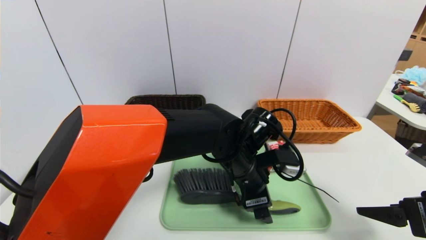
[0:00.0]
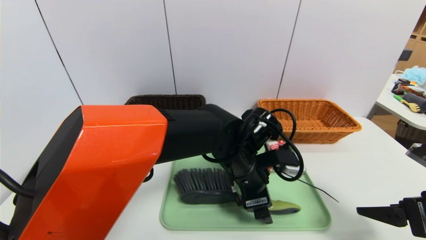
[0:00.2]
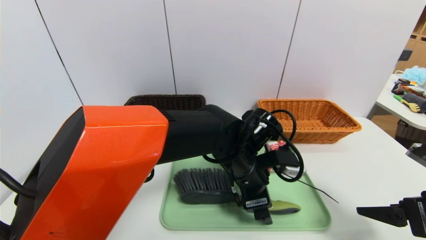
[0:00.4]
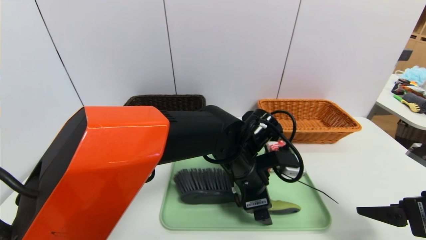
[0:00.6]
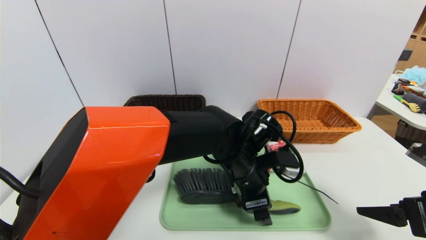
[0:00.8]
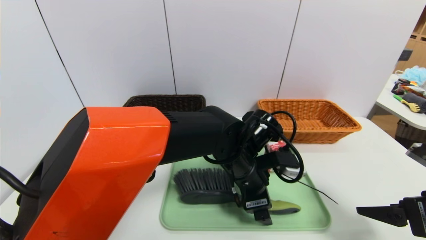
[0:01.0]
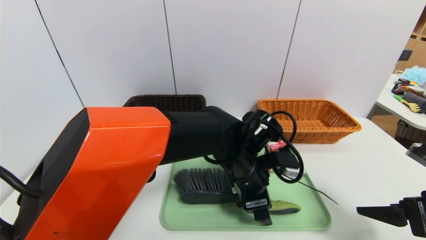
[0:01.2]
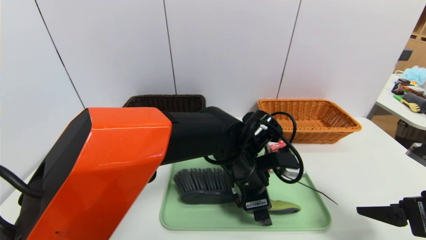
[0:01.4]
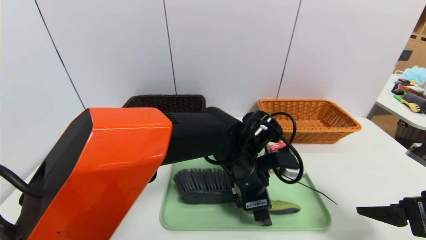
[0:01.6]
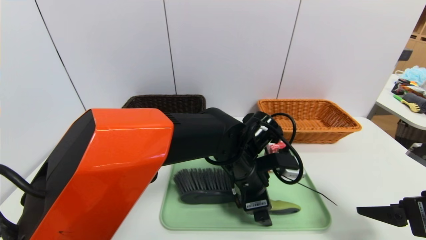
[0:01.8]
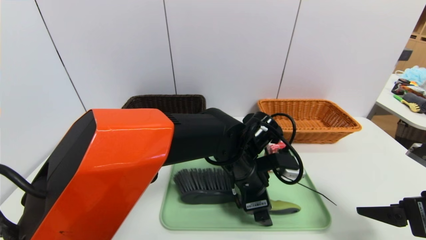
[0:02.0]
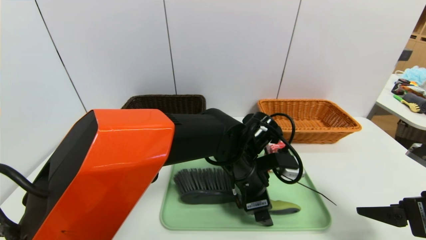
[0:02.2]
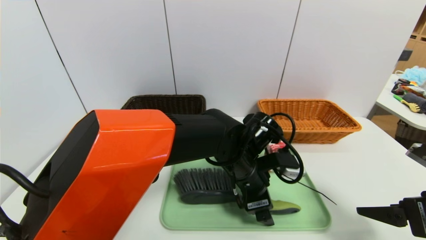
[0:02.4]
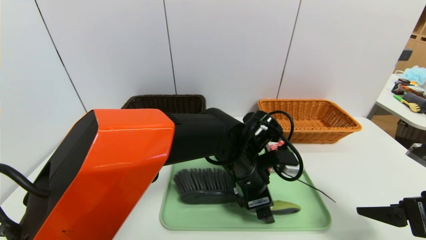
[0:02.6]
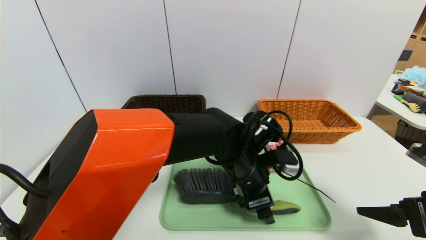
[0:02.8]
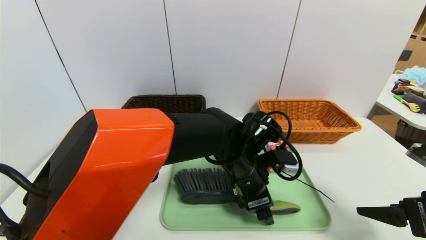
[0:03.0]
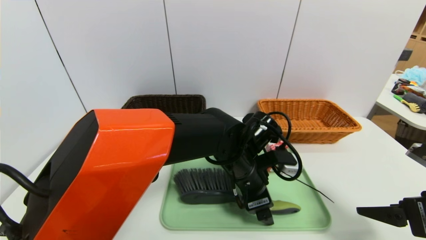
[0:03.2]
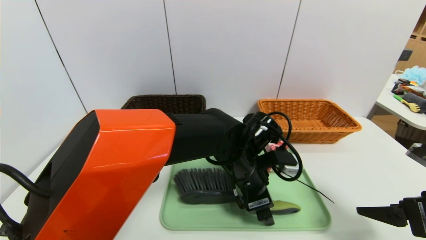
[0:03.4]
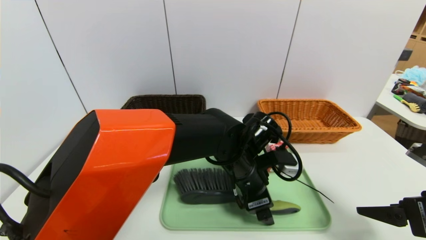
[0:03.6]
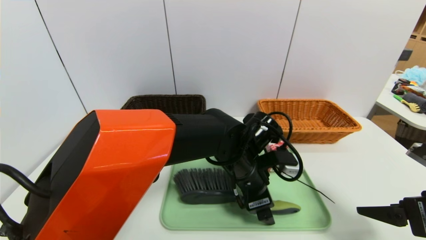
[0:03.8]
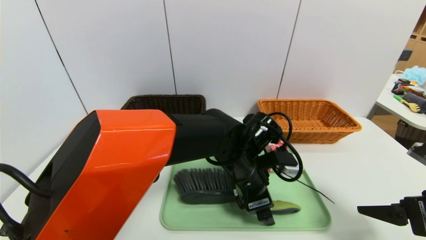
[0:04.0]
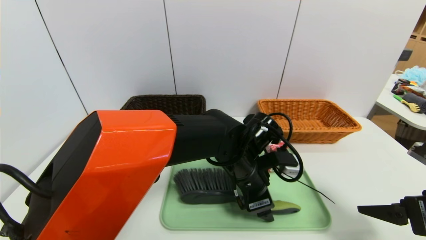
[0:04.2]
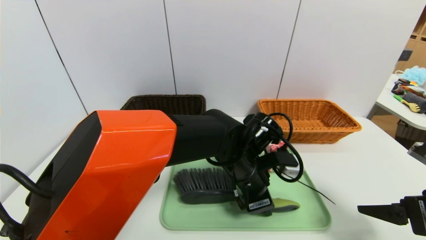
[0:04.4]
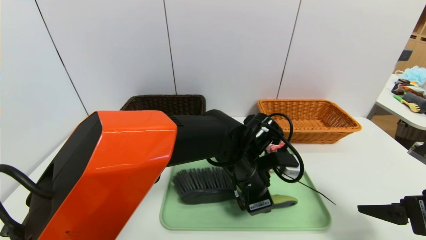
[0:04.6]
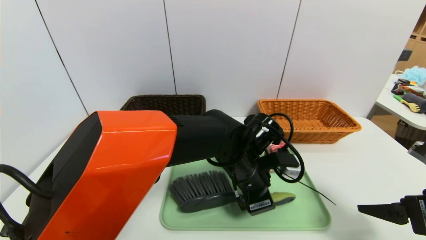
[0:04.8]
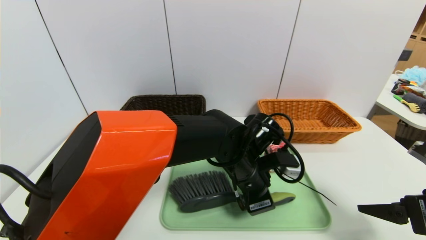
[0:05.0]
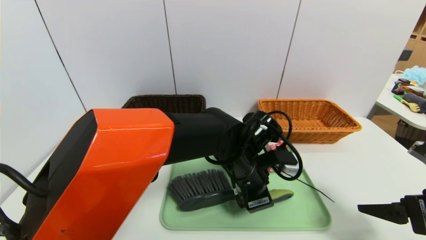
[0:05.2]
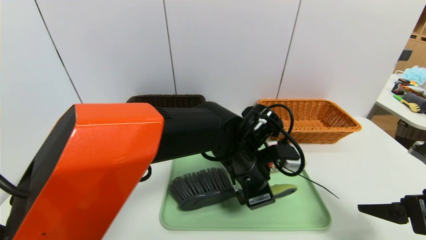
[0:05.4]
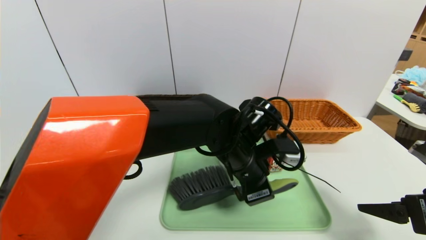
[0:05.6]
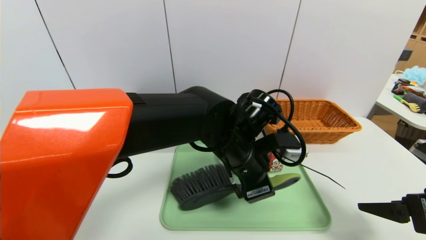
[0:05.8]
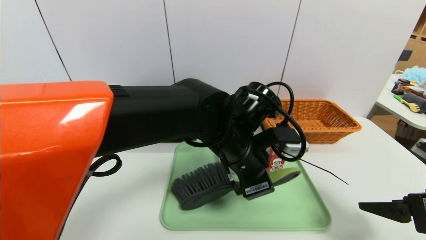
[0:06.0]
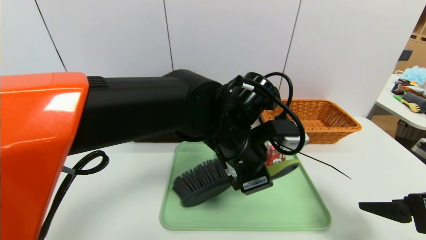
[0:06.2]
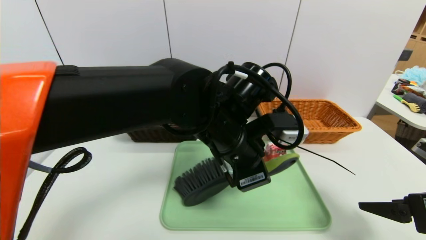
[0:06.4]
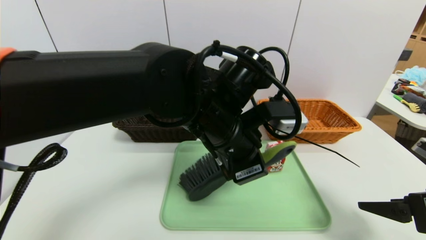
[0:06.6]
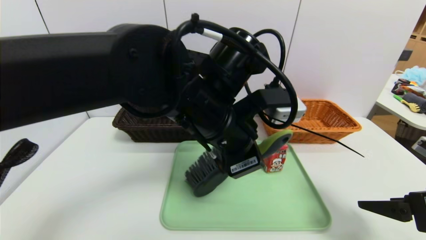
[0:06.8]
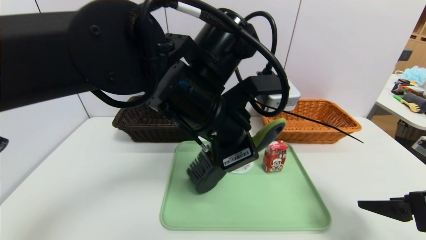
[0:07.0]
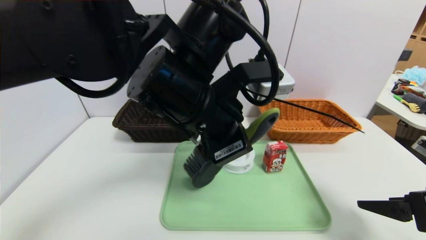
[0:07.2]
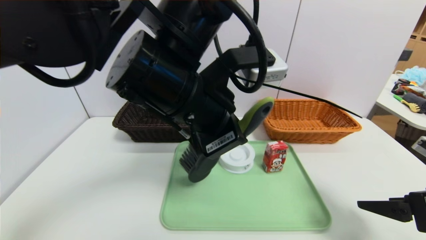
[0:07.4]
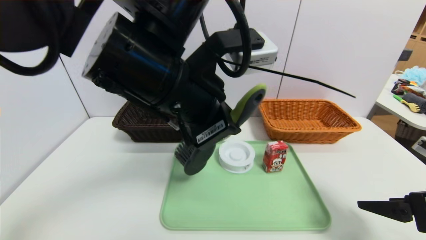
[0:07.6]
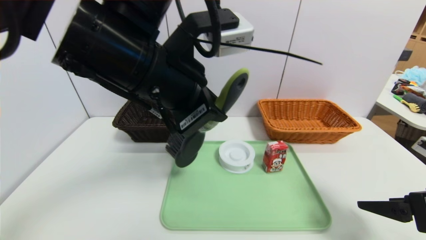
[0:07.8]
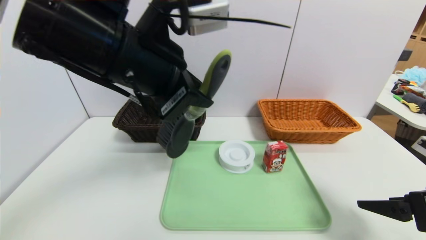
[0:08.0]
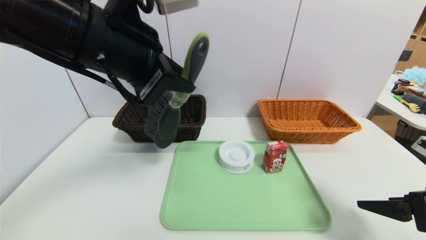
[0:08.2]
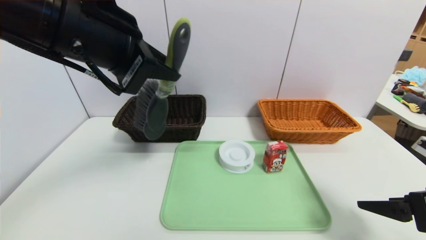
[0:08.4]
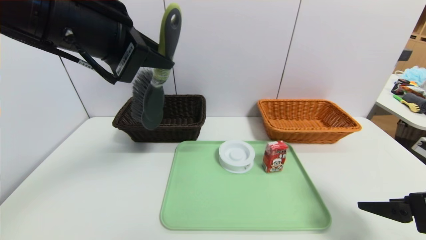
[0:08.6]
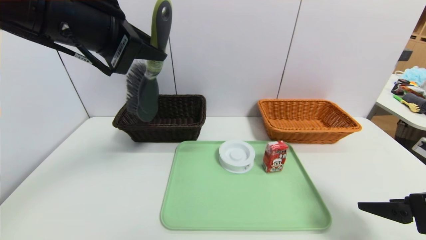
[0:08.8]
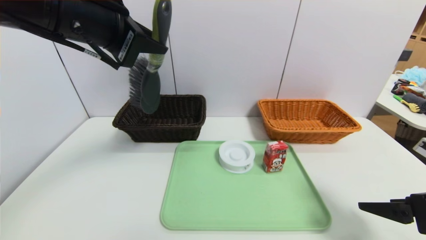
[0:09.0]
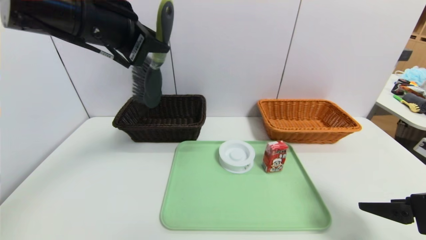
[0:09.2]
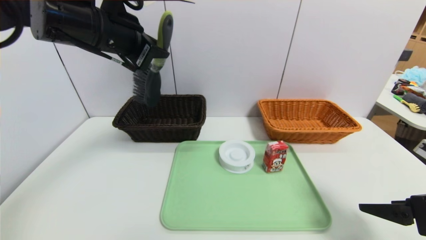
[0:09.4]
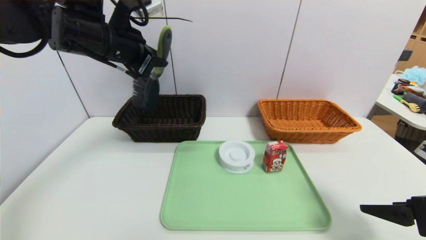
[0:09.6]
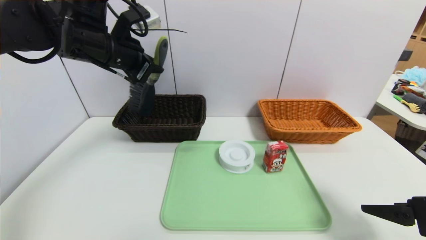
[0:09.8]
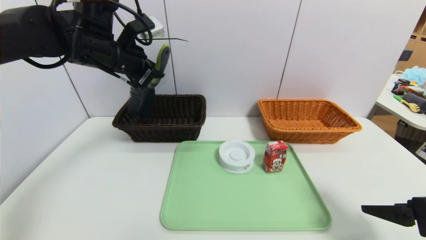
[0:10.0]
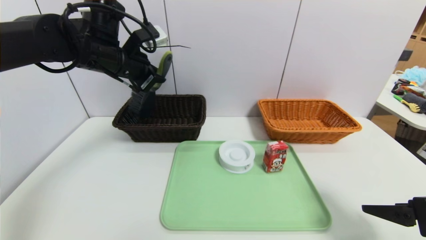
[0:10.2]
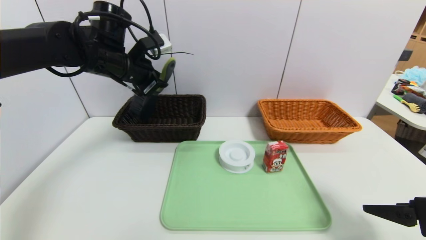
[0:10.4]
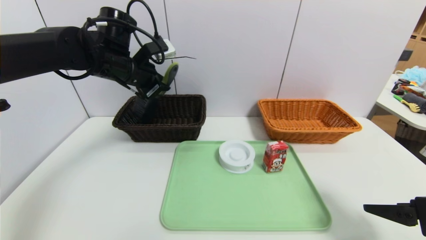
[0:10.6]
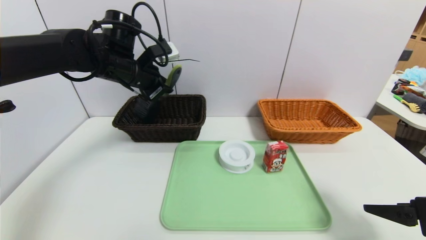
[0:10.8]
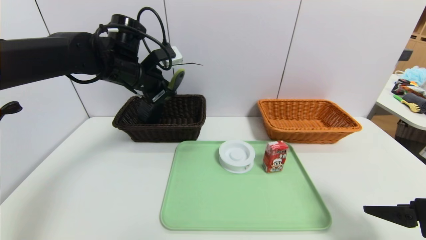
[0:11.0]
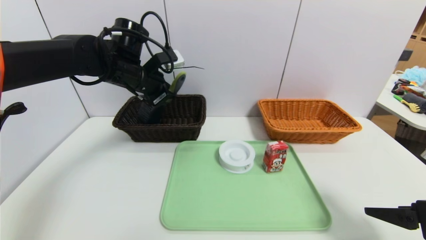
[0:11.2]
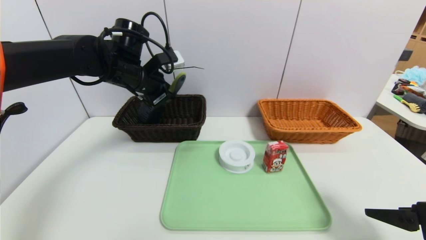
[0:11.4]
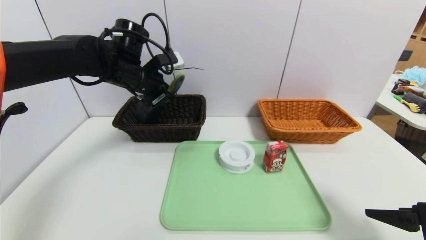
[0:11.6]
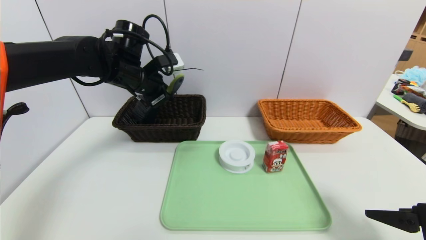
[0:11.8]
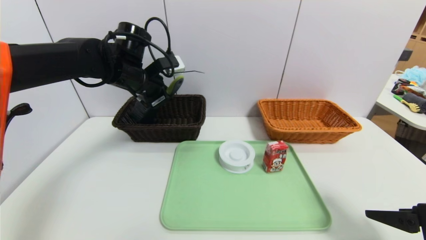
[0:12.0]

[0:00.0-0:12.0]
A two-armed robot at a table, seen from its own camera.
Task of the whole recording: place the food in the right basket with the right gripper, and place the non food items in the left basket with the left gripper.
0:00.0 to 0:01.6: Both grippers stay about where they are.
0:01.6 to 0:03.0: The grippers stay close to where they were, moving slightly.
0:03.0 to 0:04.4: The left gripper closes its fingers.
0:04.4 to 0:06.0: The left gripper heads upward, covering approximately 5 cm.
0:06.0 to 0:07.6: The left gripper goes roughly 15 cm upward and to the left.
0:07.6 to 0:09.0: The left gripper is displaced to the left and upward by about 15 cm.
0:09.0 to 0:10.4: The left gripper moves forward and downward, approximately 15 cm.
0:10.4 to 0:12.0: The grippers stay close to where they were, moving slightly.

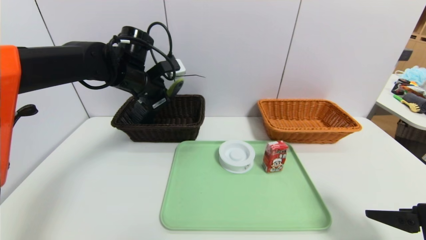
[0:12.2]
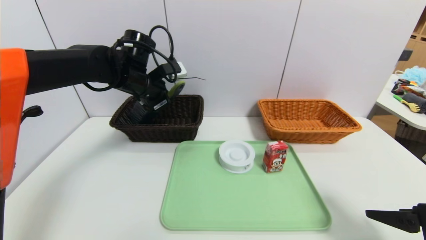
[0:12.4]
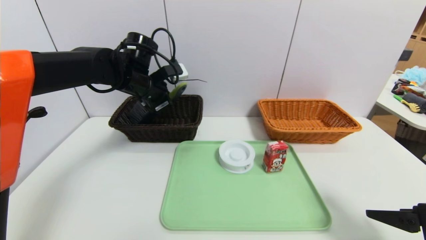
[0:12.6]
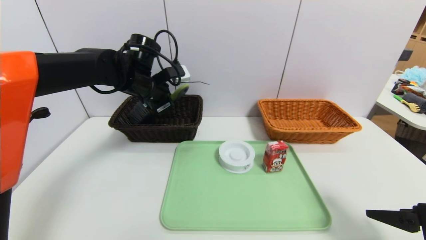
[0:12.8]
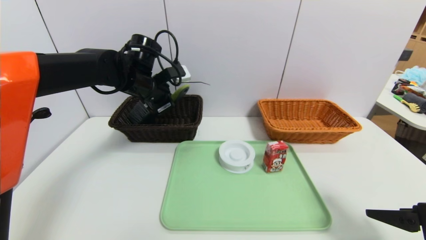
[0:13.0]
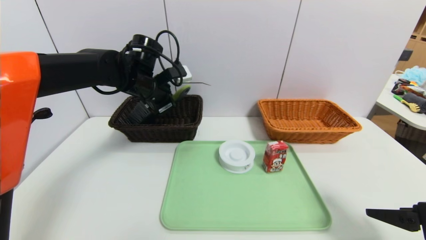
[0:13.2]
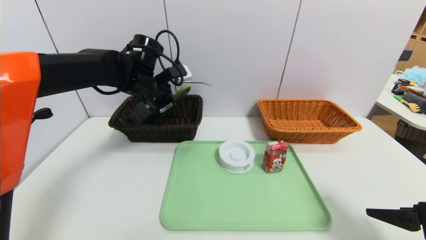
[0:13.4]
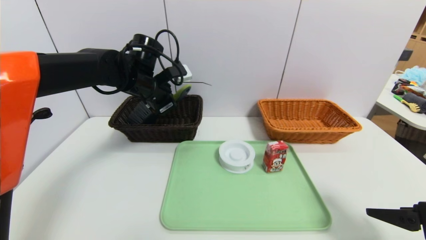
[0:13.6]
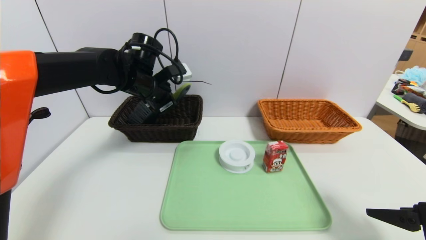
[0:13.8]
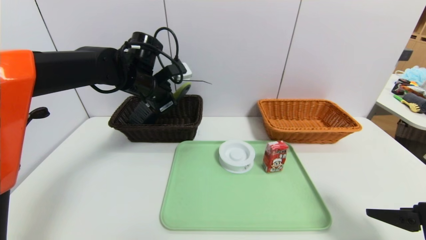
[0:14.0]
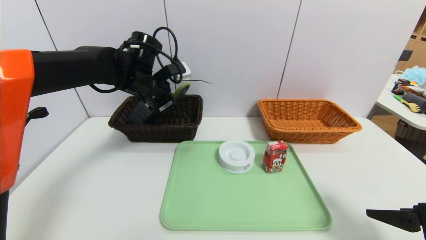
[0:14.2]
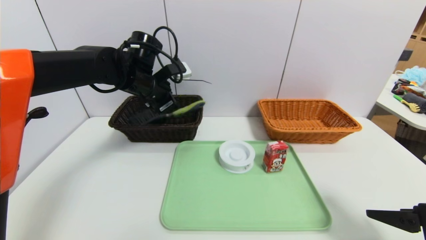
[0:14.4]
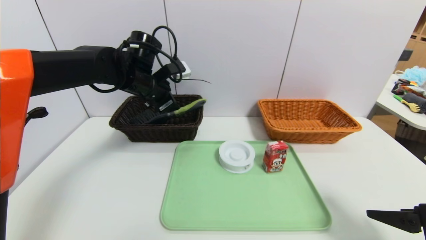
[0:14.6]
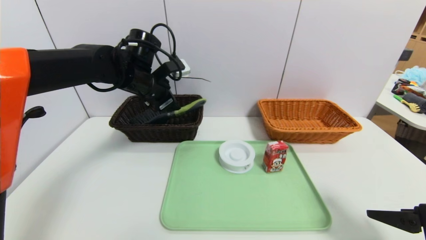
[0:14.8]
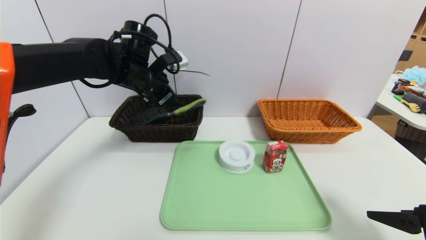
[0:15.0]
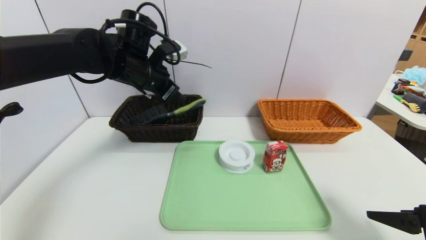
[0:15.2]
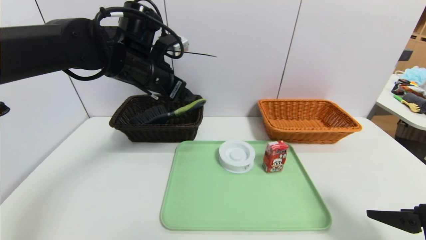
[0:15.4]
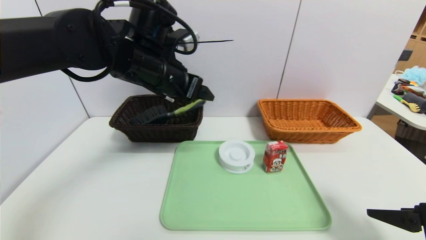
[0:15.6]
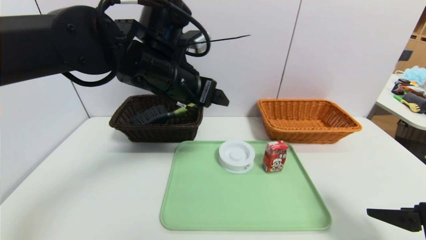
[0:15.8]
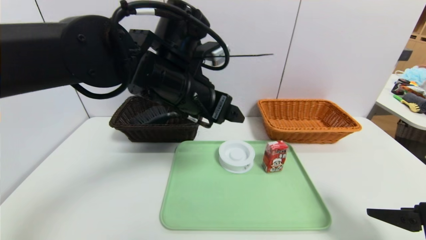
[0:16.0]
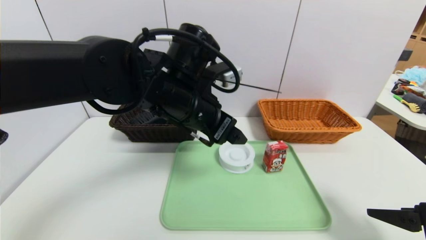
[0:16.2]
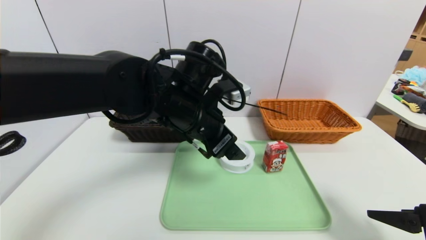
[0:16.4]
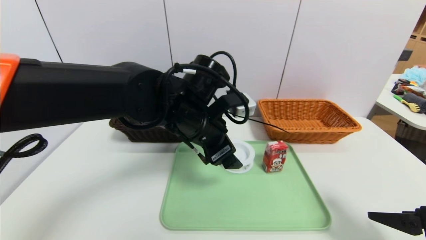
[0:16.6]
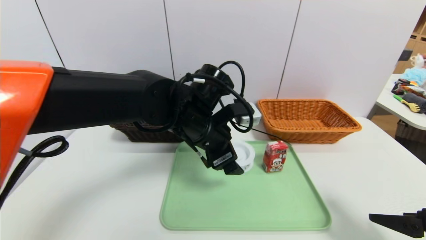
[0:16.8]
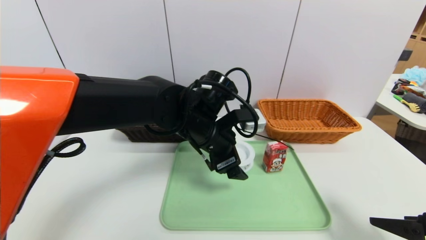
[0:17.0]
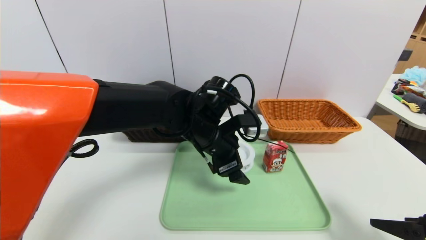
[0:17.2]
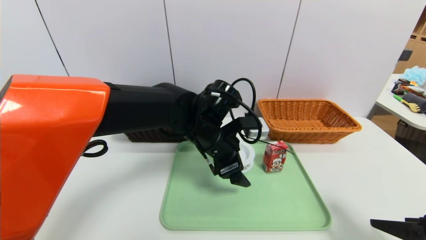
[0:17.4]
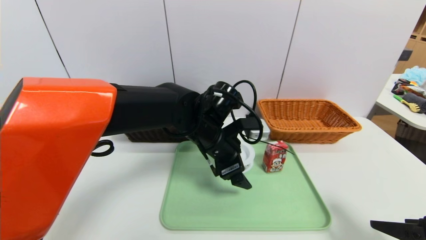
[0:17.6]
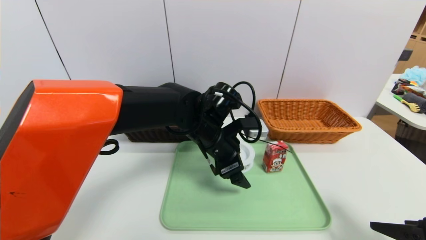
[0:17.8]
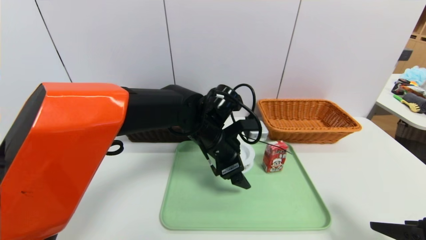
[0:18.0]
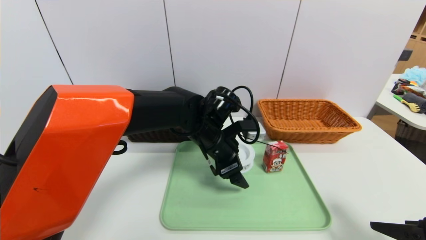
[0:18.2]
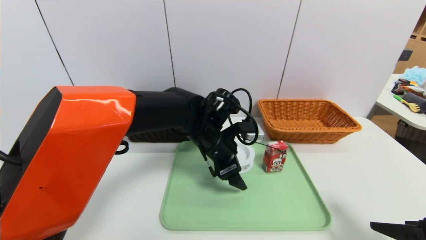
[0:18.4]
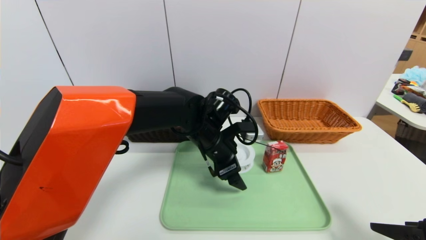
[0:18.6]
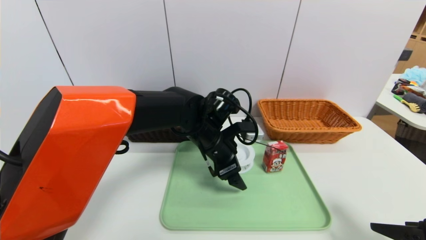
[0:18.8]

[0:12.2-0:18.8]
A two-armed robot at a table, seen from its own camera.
Task of the whole recording: place the food in the right basket with the right gripper, and place the non food items in the left basket with the left gripper.
Step, 0:12.2 to 0:15.0: Grasp the brush and put it in the left basket.
0:12.2 to 0:13.8: The grippers make only small movements.
0:13.8 to 0:15.4: The left gripper shifts some 5 cm backward, and opens its fingers.
0:15.4 to 0:17.2: The left gripper shifts about 15 cm to the right and downward.
0:17.2 to 0:18.8: The grippers stay close to where they were, moving slightly.
